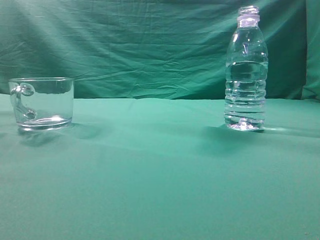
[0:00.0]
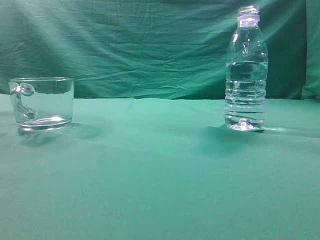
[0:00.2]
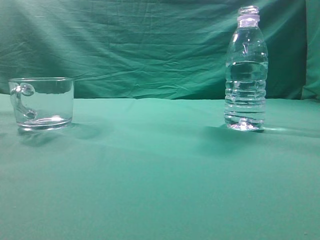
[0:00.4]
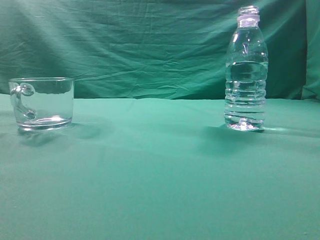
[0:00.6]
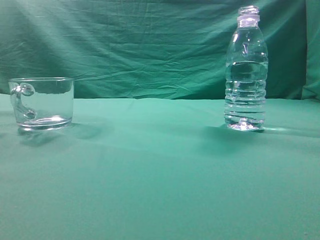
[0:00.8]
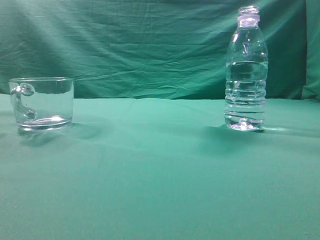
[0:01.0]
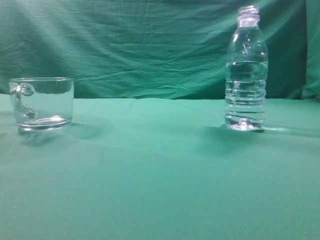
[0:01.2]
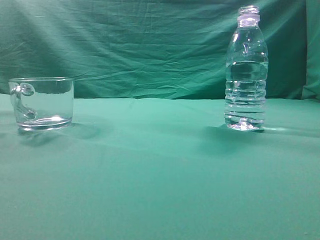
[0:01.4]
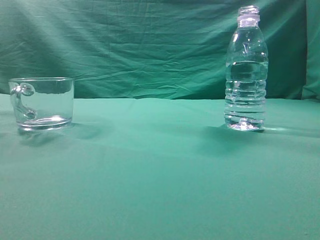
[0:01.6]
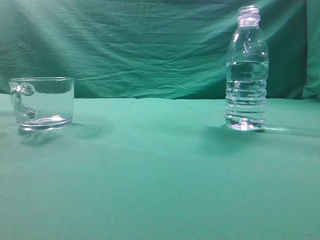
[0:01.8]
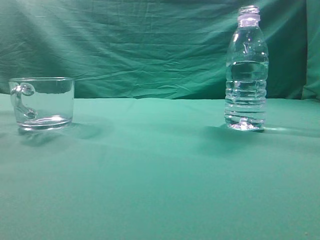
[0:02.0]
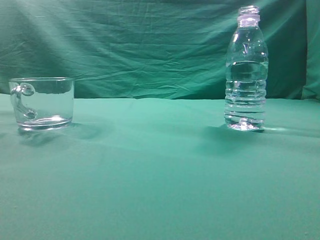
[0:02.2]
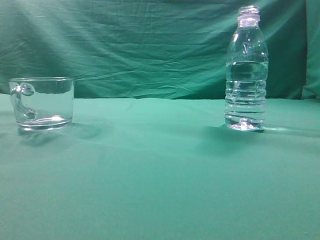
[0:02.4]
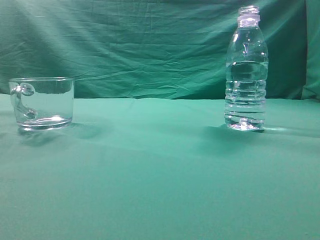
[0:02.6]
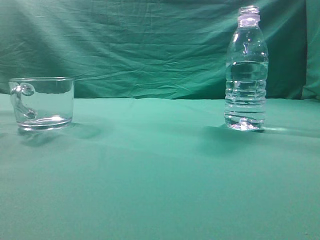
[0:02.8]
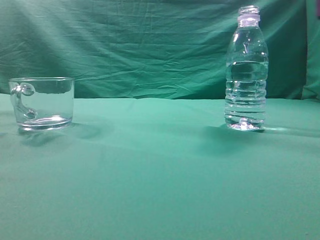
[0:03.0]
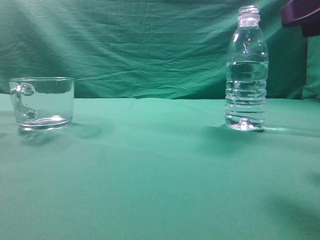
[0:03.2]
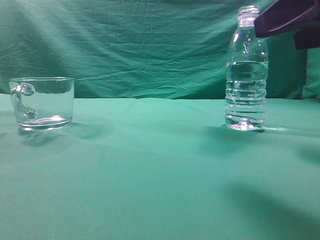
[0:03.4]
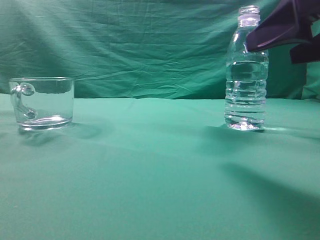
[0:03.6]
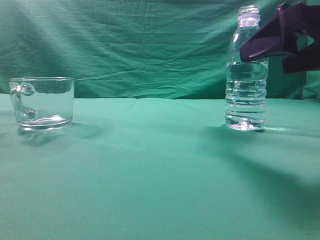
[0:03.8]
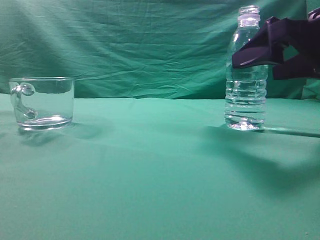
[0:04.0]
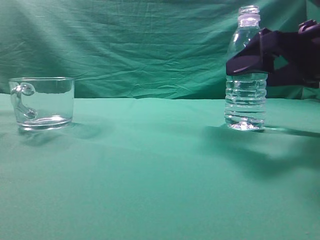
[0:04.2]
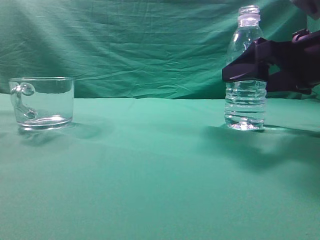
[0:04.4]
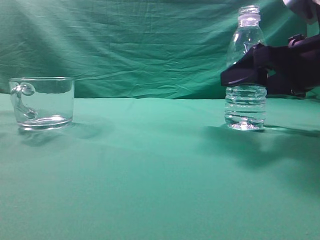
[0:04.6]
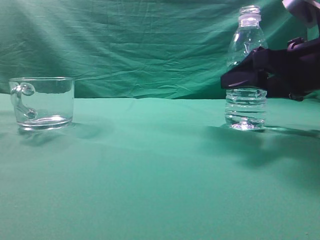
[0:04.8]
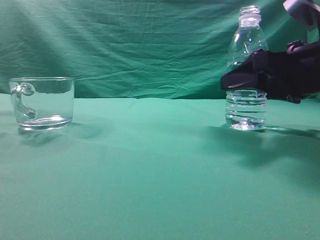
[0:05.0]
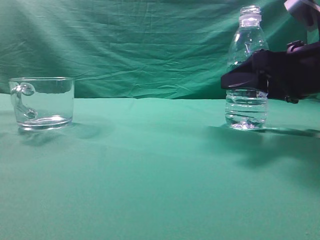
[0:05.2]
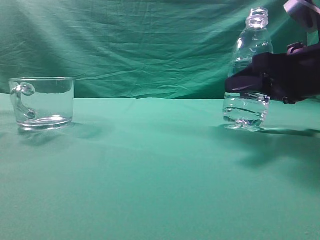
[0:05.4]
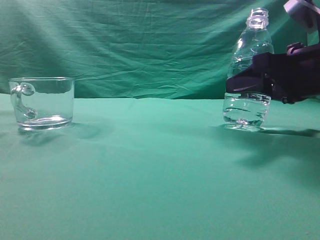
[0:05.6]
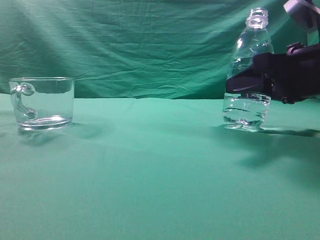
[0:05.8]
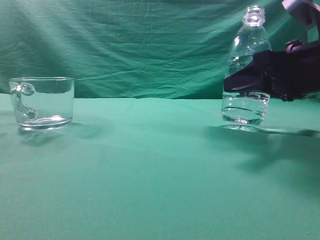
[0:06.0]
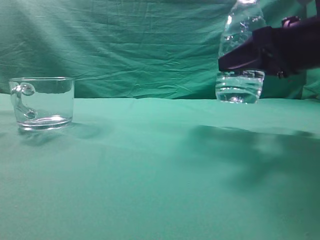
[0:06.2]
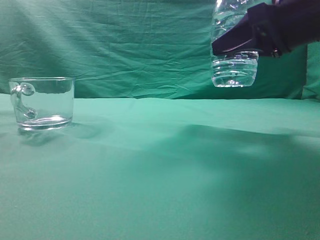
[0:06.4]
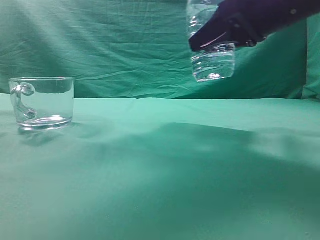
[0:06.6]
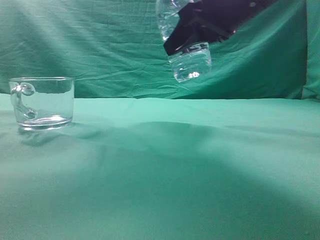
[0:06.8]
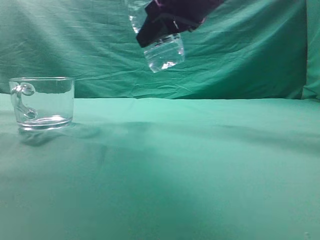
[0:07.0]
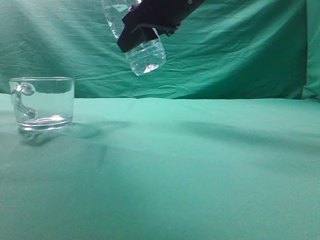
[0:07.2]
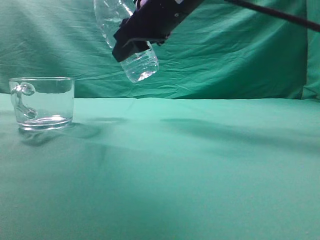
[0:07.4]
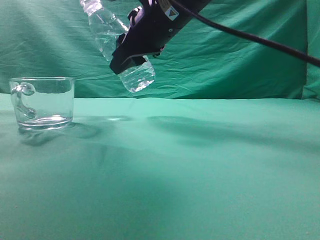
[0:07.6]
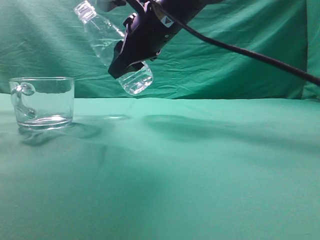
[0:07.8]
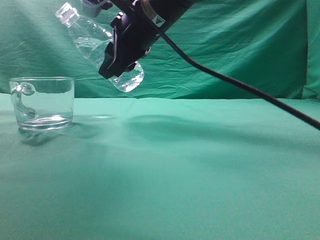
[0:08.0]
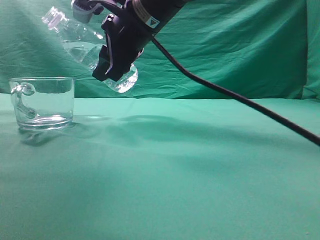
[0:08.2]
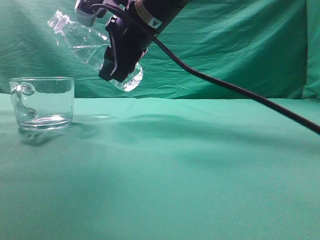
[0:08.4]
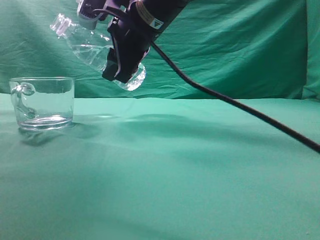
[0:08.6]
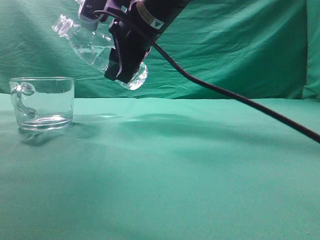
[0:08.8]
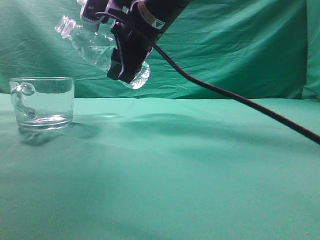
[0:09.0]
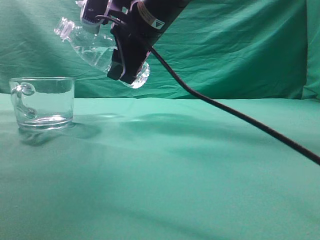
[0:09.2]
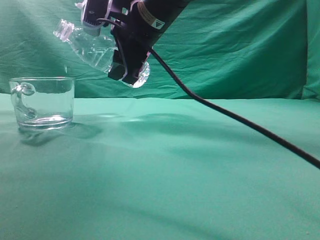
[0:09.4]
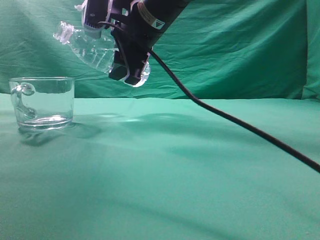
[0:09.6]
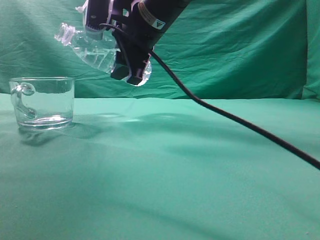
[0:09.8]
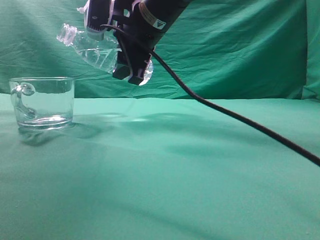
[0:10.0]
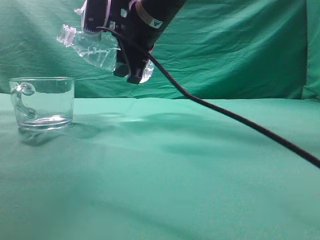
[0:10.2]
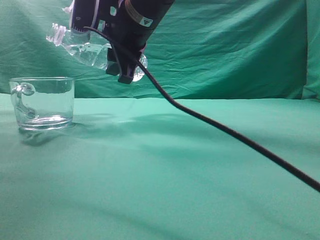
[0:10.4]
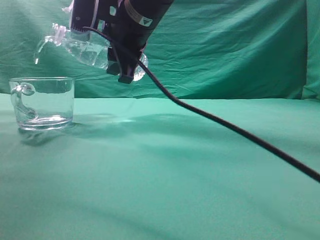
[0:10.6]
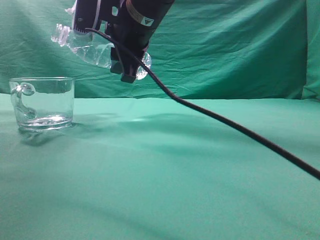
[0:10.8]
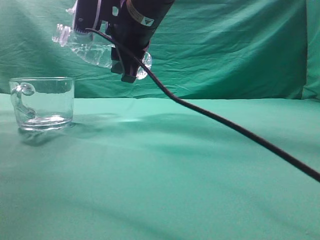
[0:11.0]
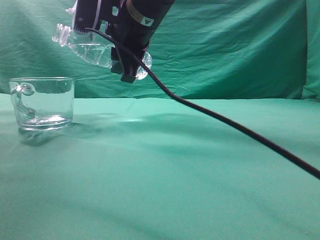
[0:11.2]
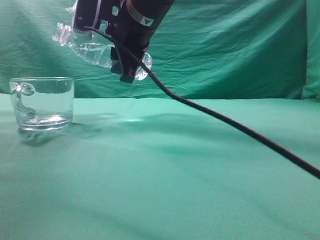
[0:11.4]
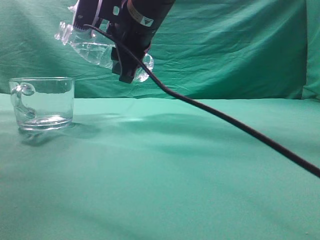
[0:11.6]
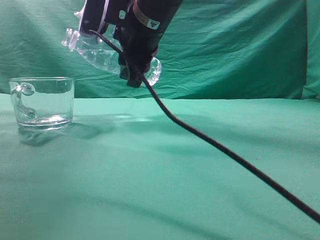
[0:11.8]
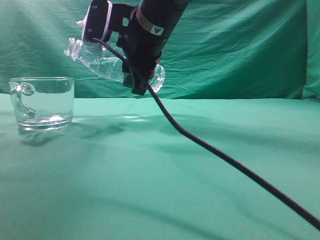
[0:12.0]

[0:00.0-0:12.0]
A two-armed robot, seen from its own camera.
Task of the whole recording: pick up the water bottle and pour the water in it into the glass.
Step, 0:00.0 to 0:06.2: Grasp the mineral water bottle.
0:03.0 to 0:04.4: The right gripper travels forward and downward by approximately 15 cm, and opens.
0:04.4 to 0:06.0: The right gripper closes up.
0:06.0 to 0:07.6: The right gripper is displaced to the left, upward and forward by about 25 cm.
0:09.0 to 0:12.0: There are only small adjustments of the grippers.

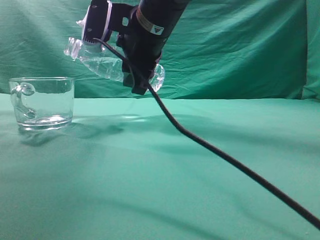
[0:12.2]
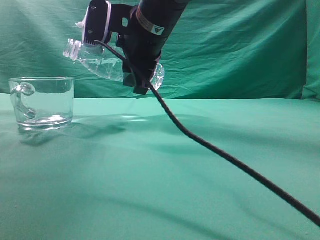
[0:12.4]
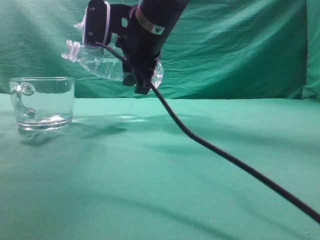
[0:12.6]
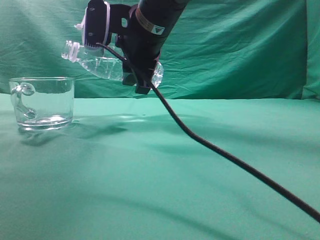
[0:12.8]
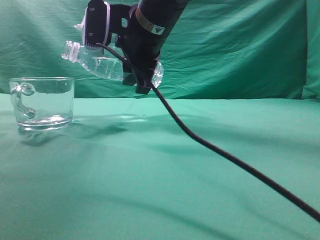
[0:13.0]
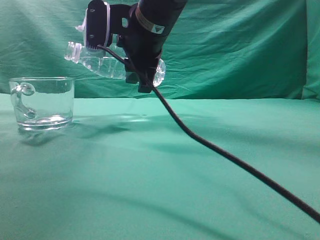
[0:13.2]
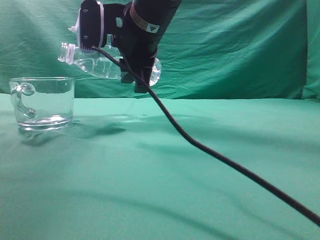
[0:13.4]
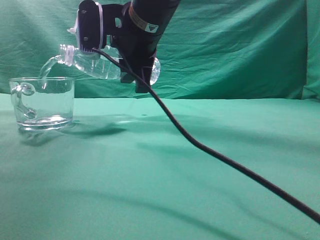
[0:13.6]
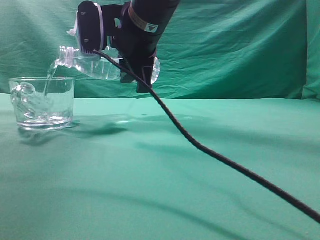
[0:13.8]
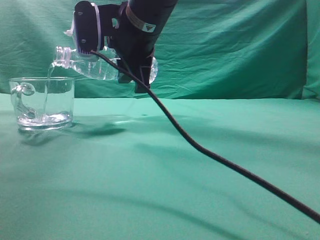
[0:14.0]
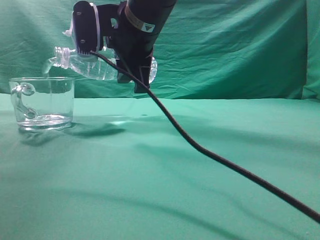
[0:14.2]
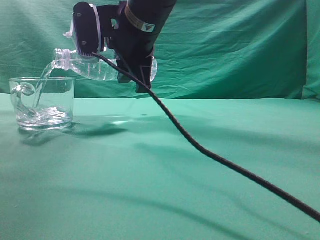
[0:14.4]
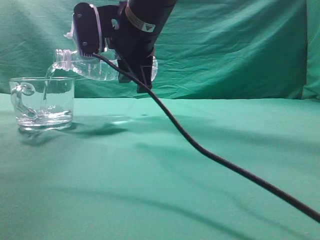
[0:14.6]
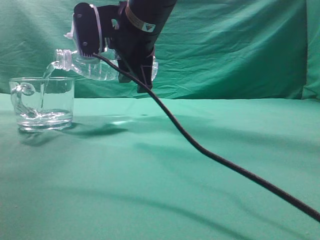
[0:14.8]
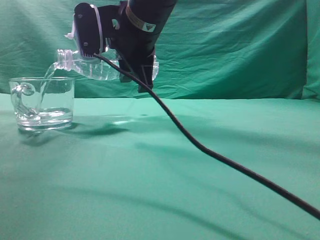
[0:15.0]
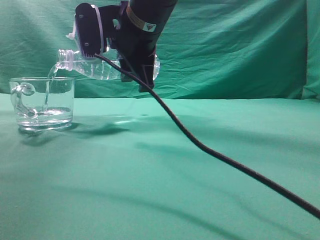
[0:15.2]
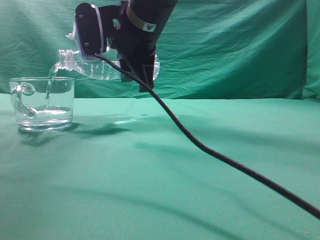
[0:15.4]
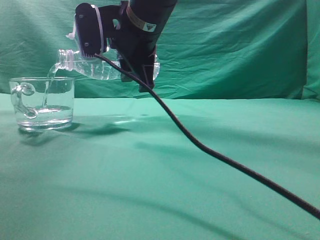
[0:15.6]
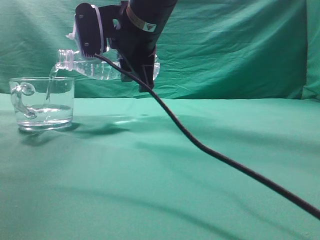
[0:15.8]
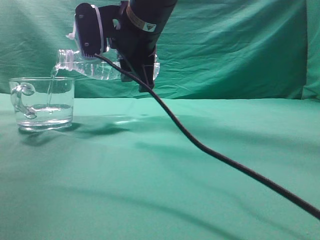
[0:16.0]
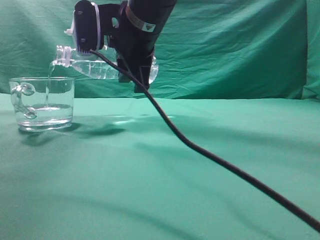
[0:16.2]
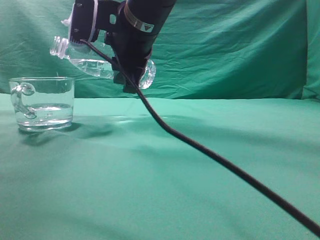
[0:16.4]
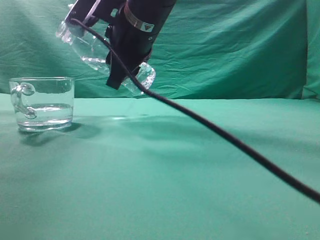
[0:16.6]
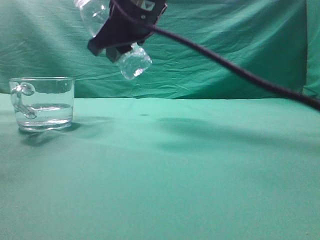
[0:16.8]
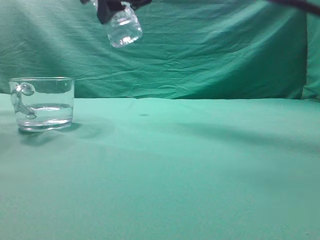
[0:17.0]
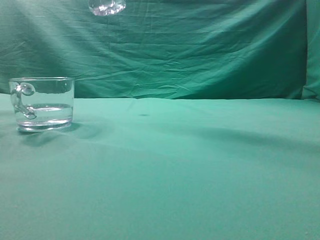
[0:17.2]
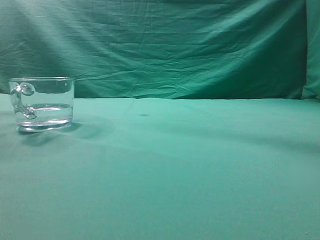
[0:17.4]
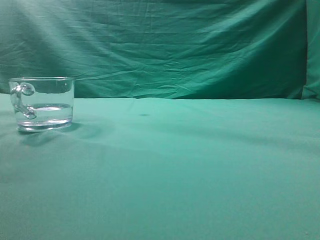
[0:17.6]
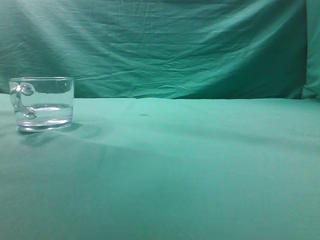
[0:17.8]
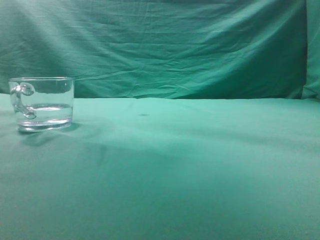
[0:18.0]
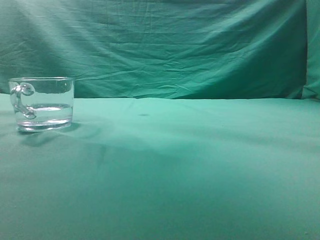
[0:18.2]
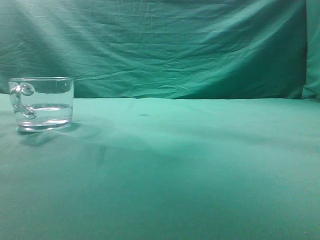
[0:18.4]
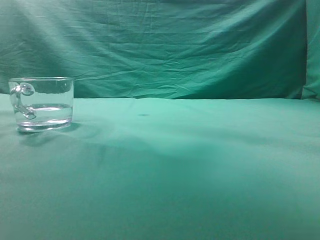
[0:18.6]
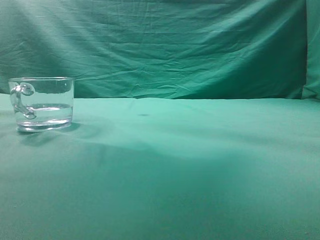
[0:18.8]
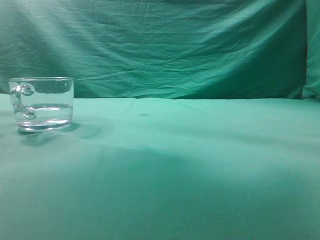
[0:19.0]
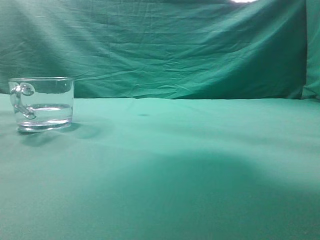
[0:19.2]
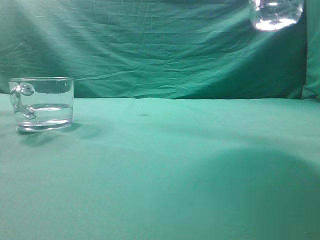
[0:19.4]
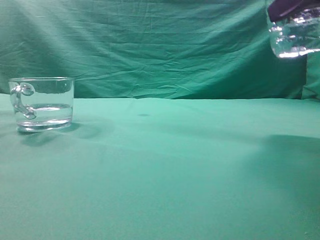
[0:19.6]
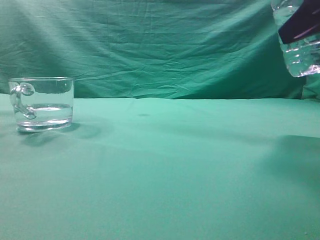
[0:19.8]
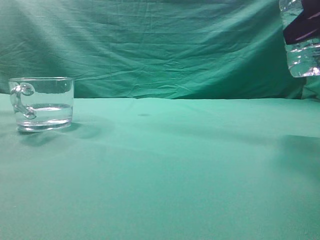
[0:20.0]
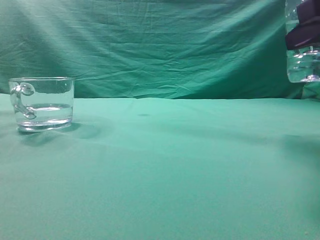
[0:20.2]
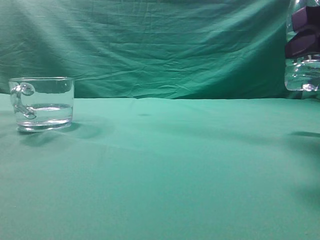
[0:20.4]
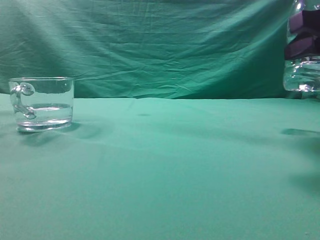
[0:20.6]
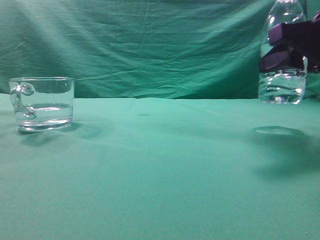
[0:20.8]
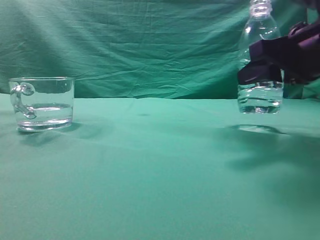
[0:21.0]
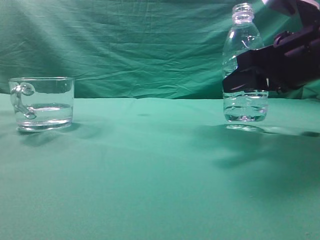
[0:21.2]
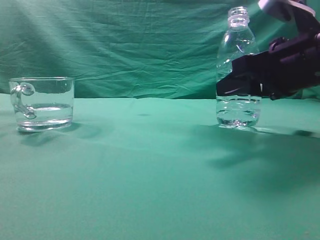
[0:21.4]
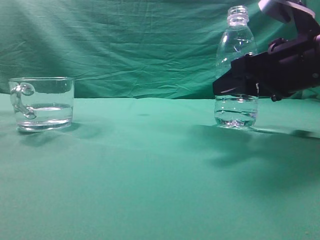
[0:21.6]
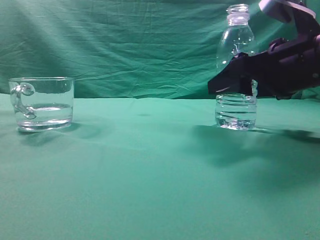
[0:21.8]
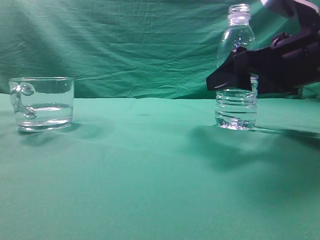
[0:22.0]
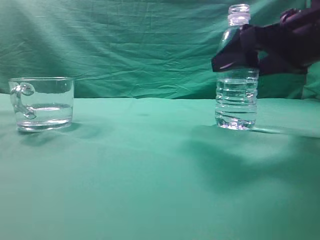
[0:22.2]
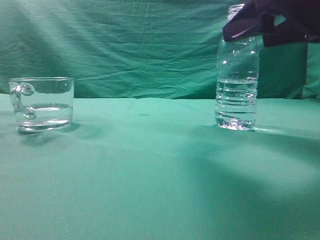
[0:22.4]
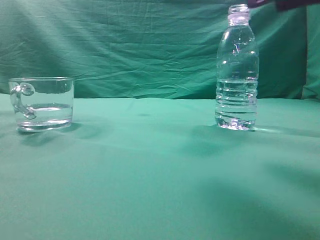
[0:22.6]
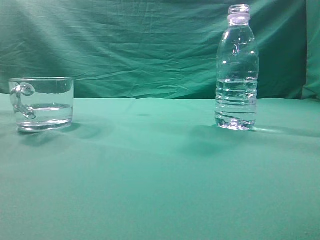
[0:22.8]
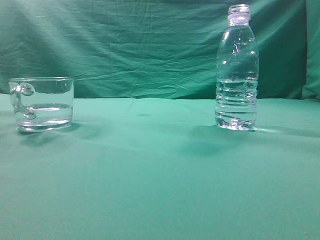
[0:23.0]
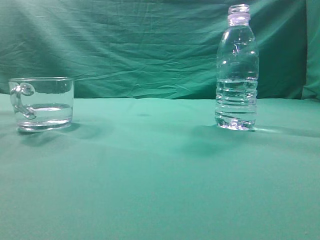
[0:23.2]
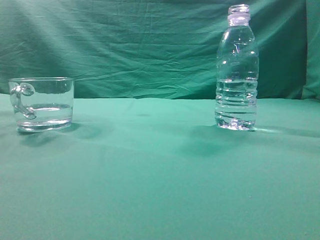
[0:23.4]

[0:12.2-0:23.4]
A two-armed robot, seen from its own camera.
Task of the whole recording: pick up the water bottle and pour the water in it into the glass.
Step, 0:12.2 to 0:16.6: Pour water into the teacup.
0:12.2 to 0:13.8: The grippers move only a little.
0:13.8 to 0:15.4: Both grippers stay about where they are.
0:15.4 to 0:17.0: The right gripper travels upward by roughly 10 cm.
0:17.0 to 0:18.6: The right gripper heads to the right, covering about 20 cm.
0:18.6 to 0:20.2: The right gripper heads downward and backward, covering approximately 20 cm.
0:20.2 to 0:21.8: The right gripper travels forward and downward by approximately 10 cm, and opens.
0:21.8 to 0:23.4: The right gripper is displaced upward and backward by some 30 cm, and closes up.
